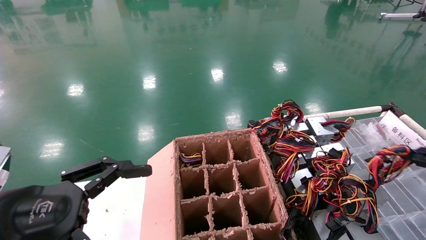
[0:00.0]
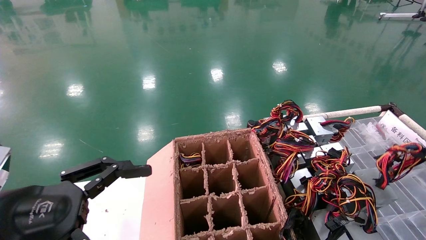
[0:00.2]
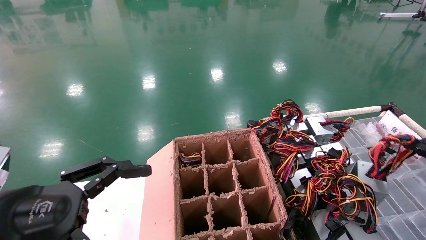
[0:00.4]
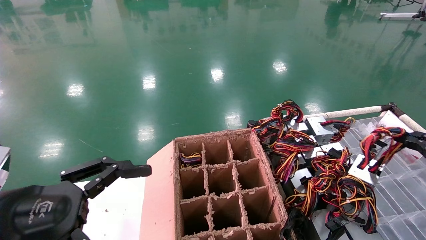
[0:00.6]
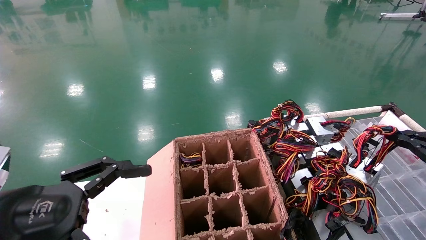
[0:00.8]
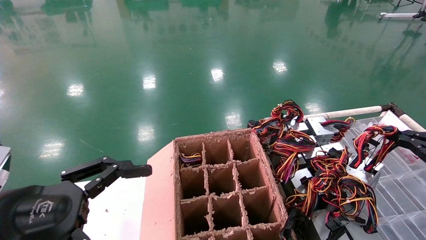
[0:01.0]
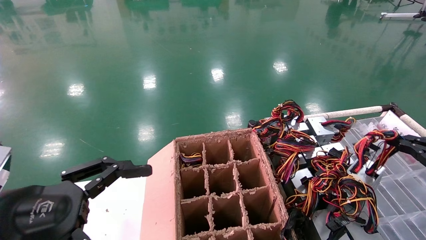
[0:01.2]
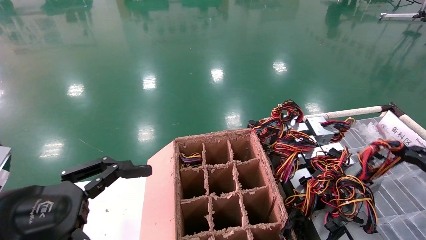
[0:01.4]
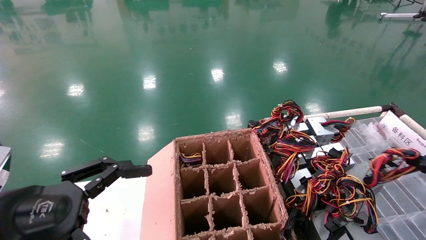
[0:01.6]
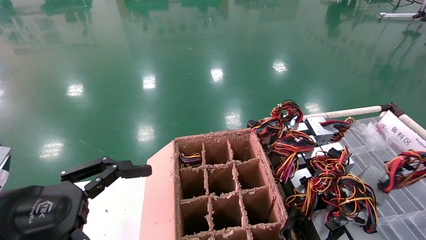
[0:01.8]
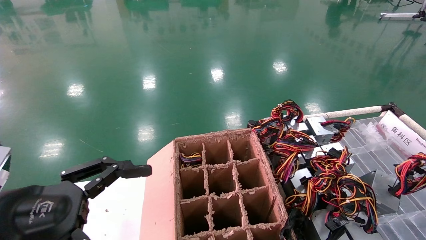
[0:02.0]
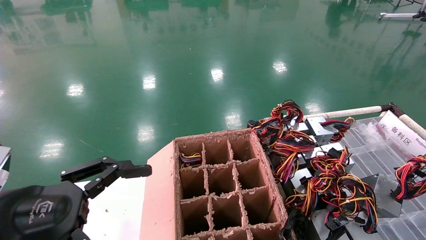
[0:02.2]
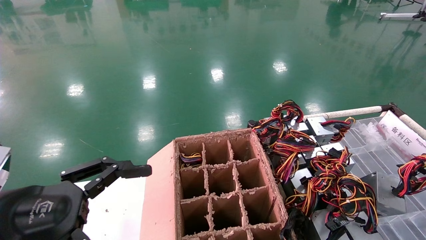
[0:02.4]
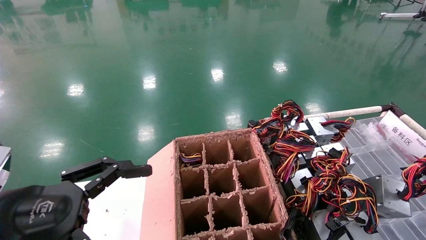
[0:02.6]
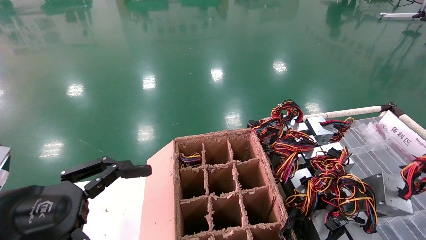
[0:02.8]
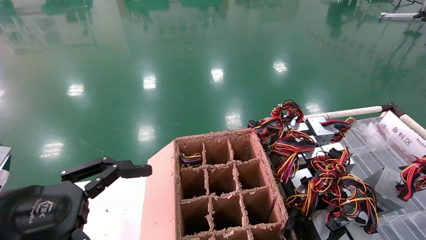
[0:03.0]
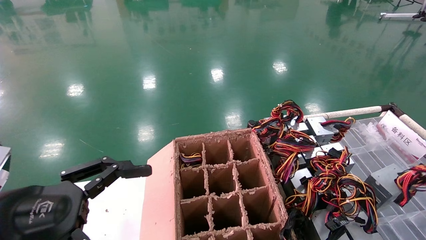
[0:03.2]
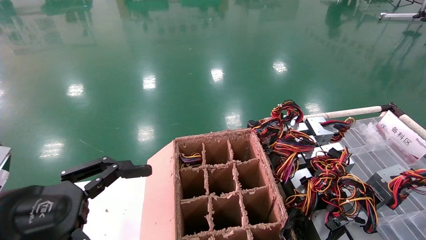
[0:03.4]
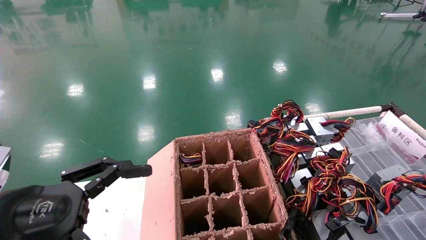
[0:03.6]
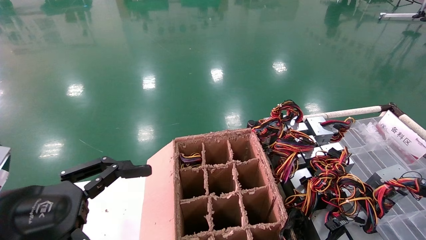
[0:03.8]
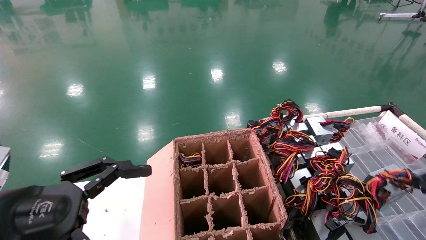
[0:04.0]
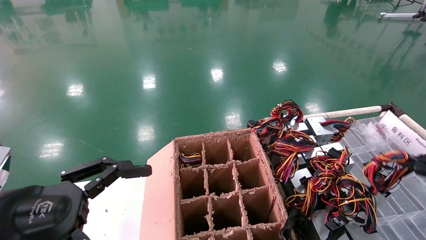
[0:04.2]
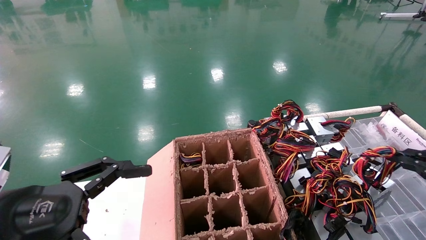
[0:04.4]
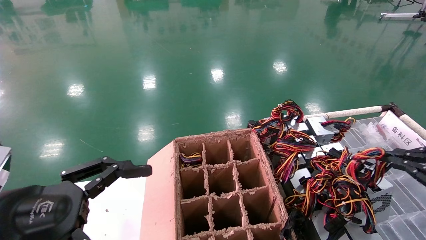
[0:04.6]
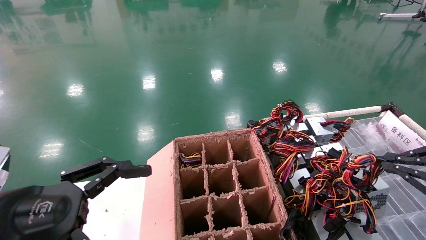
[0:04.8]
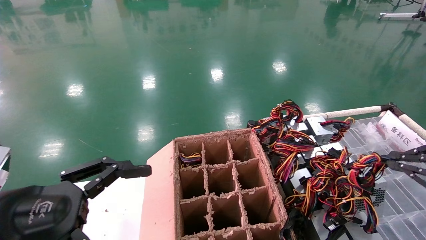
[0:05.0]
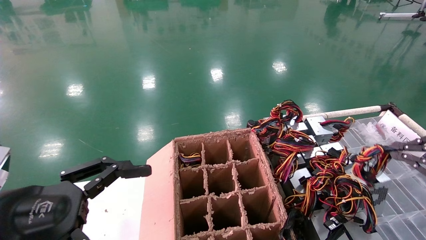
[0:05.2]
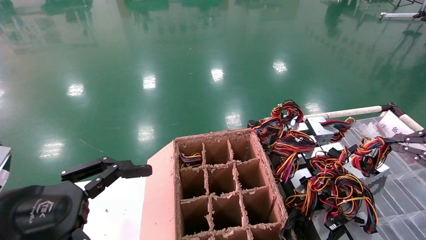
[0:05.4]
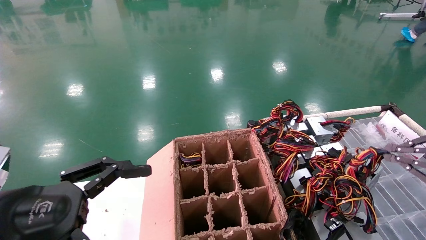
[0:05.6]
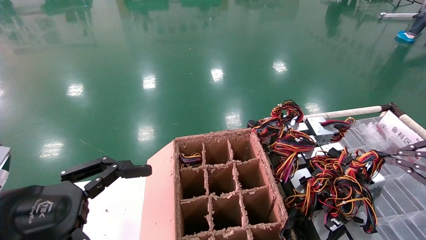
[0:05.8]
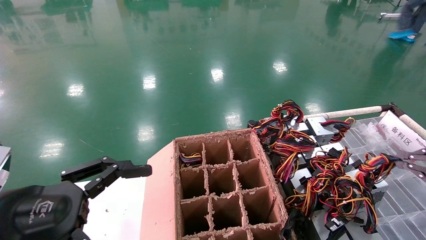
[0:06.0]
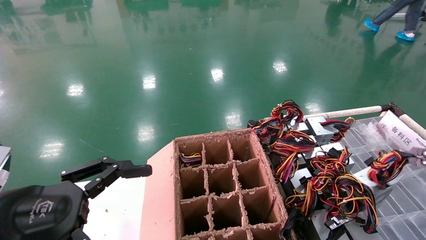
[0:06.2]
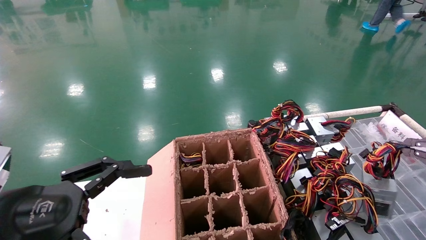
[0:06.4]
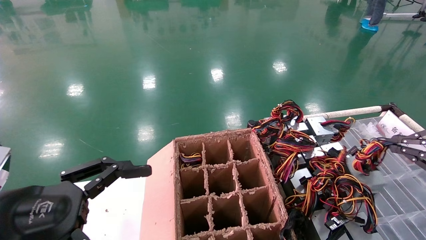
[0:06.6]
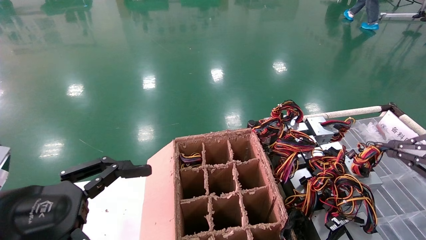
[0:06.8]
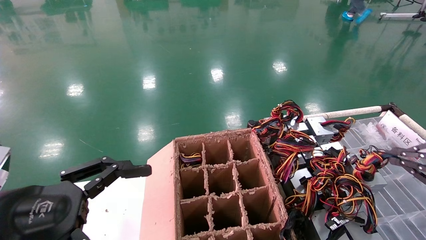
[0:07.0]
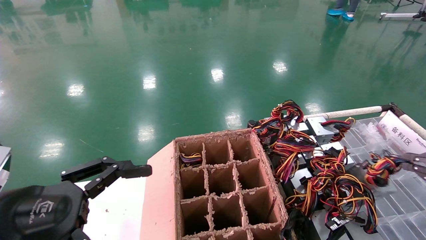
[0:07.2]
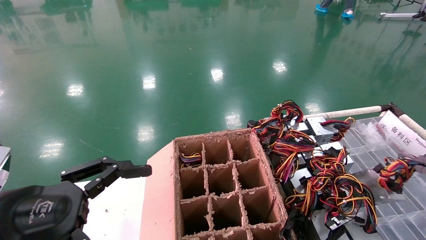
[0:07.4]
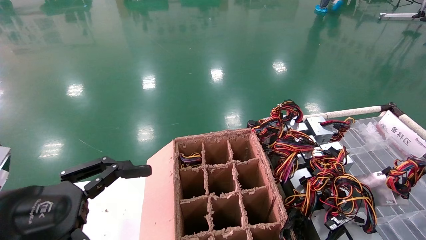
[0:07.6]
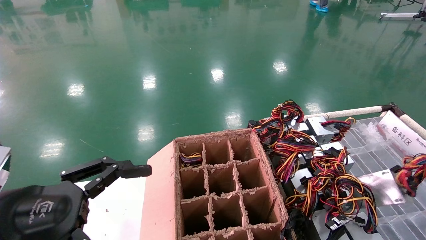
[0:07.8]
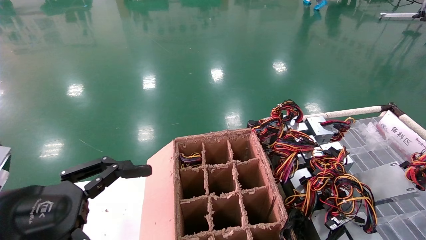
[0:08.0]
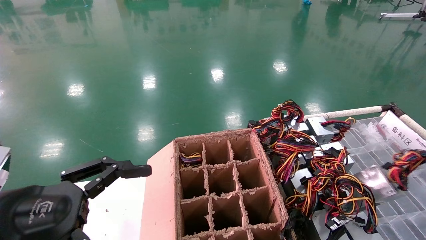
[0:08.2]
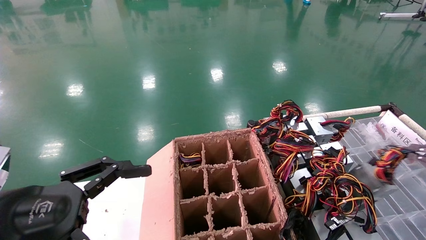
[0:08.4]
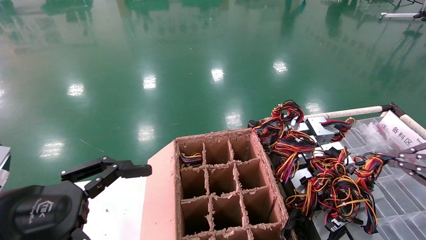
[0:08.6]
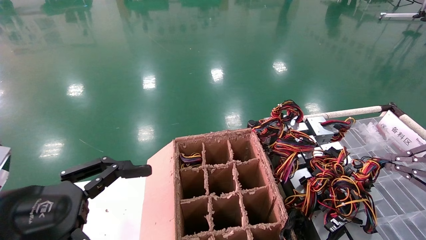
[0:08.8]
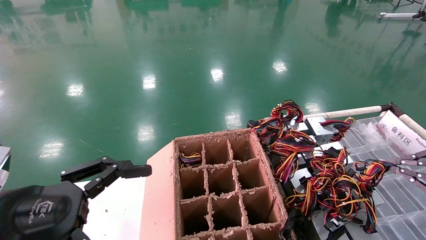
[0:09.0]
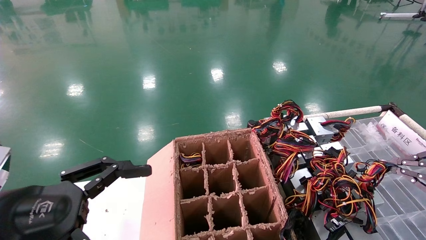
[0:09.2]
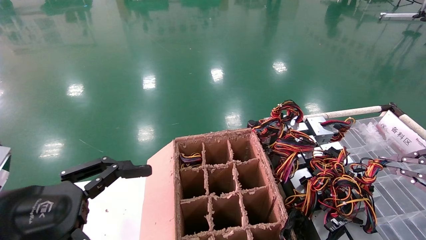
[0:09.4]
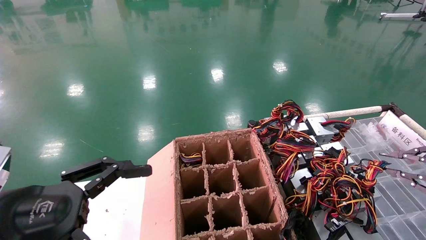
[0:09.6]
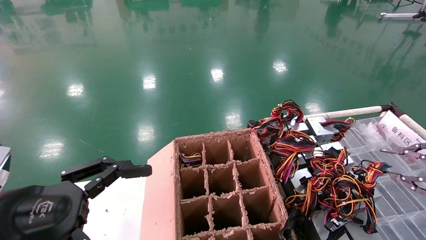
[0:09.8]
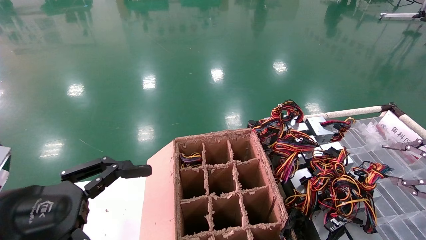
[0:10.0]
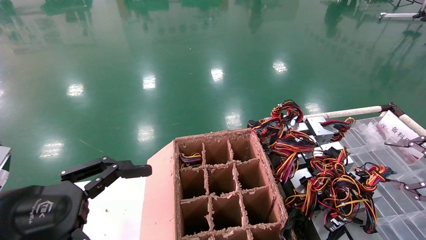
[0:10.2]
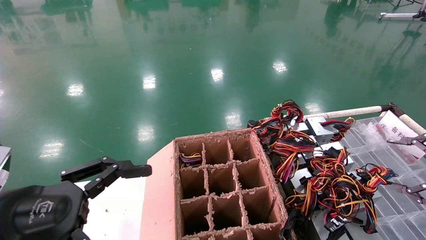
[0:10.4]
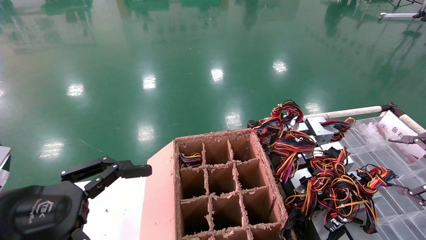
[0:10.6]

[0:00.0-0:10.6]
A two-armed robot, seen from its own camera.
Step, 0:00.0 to 0:09.2: Place the power supply on the operating table.
0:00.0 to 0:01.6: The grippers move only a little.
0:01.6 to 0:03.0: The grippers stay close to where they were, moving slightly.
0:03.0 to 0:04.6: The right gripper shifts about 10 cm to the left.
0:06.0 to 0:07.6: The right gripper is displaced to the right by some 5 cm.
0:07.6 to 0:09.0: The right gripper shifts roughly 5 cm to the left.
0:09.0 to 0:10.6: The right gripper opens its fingers.
